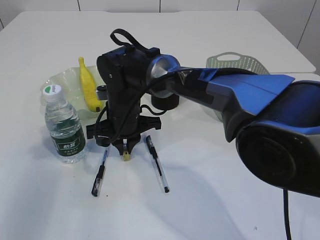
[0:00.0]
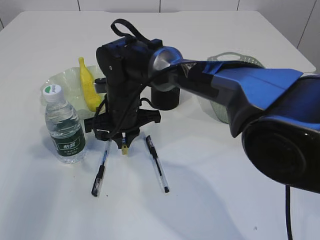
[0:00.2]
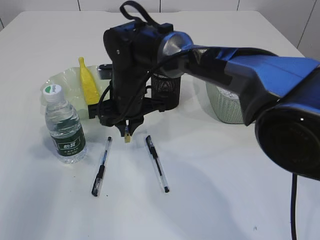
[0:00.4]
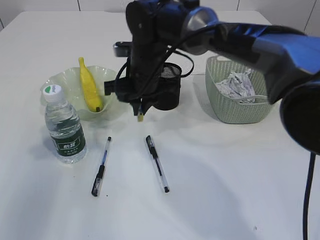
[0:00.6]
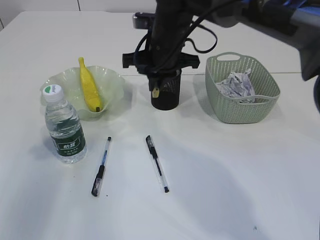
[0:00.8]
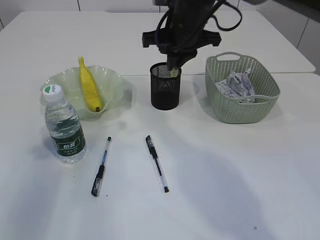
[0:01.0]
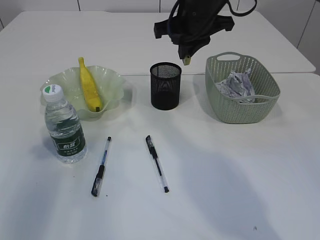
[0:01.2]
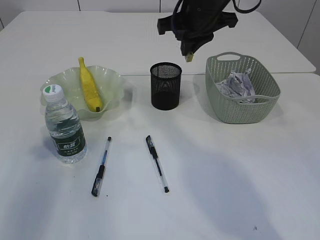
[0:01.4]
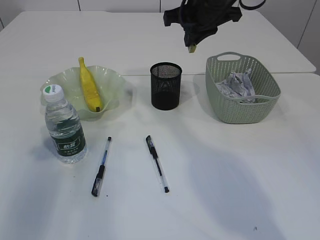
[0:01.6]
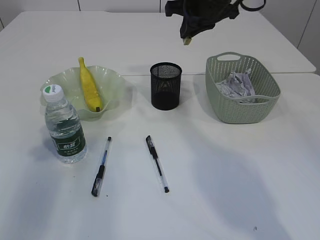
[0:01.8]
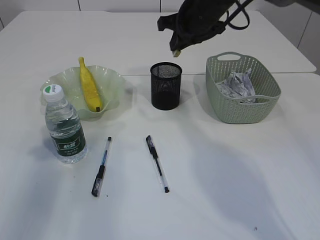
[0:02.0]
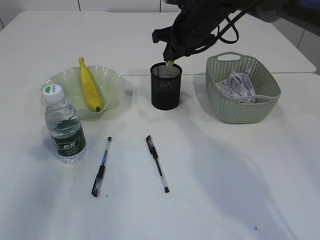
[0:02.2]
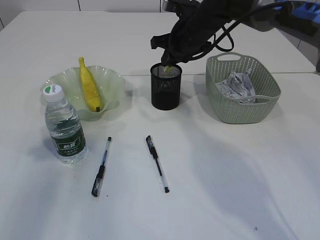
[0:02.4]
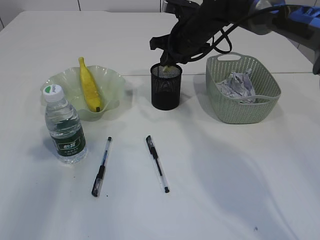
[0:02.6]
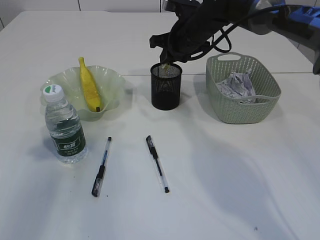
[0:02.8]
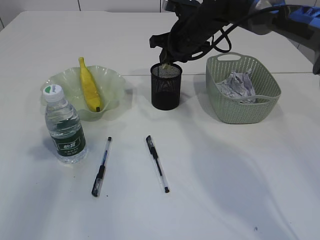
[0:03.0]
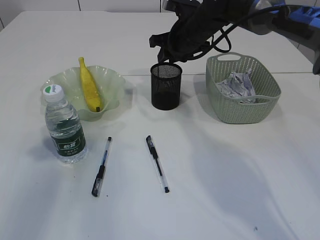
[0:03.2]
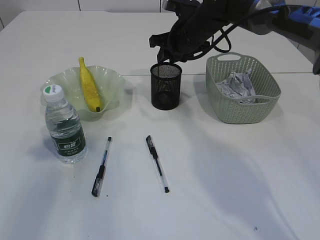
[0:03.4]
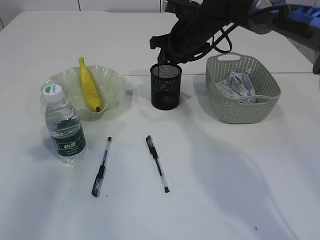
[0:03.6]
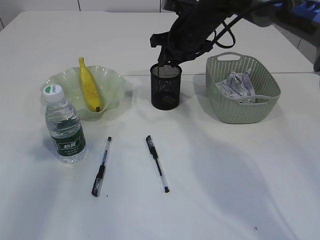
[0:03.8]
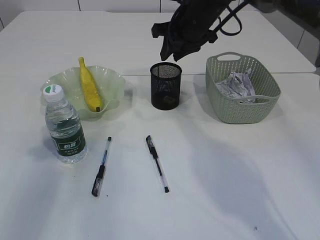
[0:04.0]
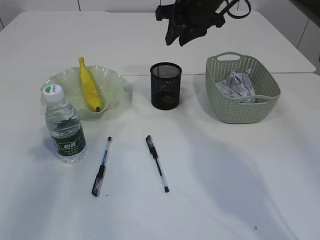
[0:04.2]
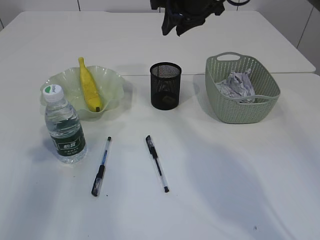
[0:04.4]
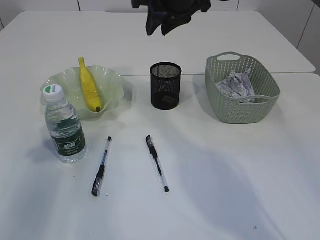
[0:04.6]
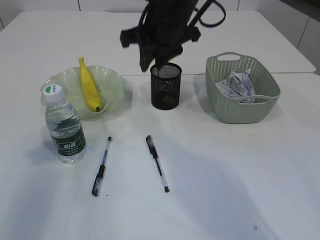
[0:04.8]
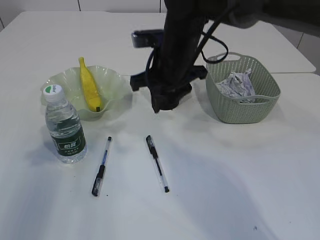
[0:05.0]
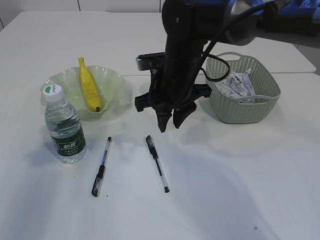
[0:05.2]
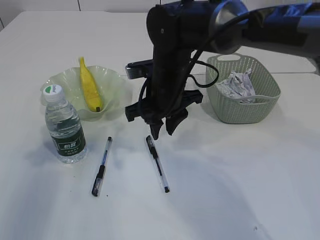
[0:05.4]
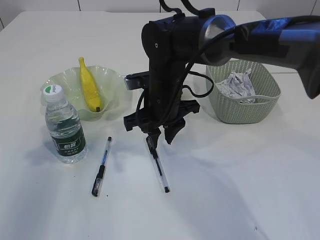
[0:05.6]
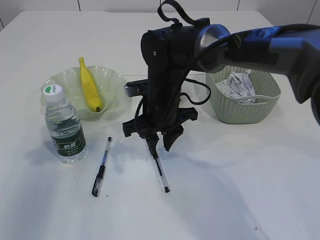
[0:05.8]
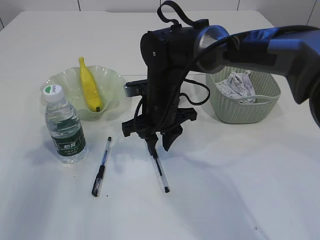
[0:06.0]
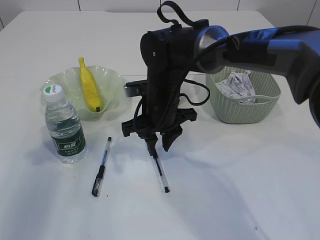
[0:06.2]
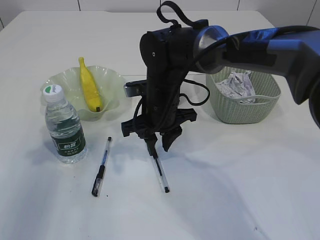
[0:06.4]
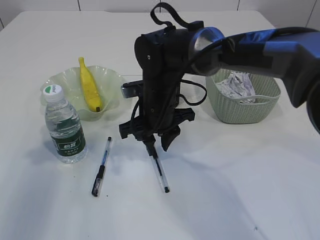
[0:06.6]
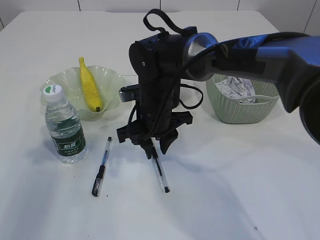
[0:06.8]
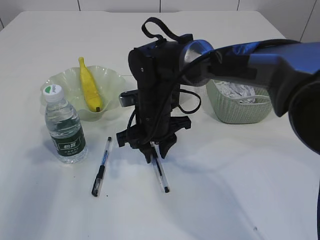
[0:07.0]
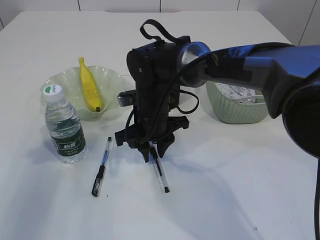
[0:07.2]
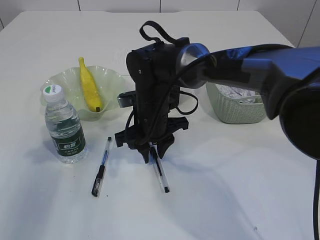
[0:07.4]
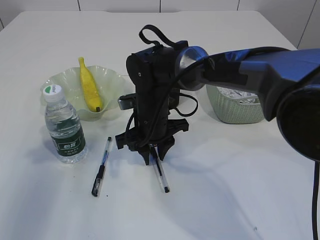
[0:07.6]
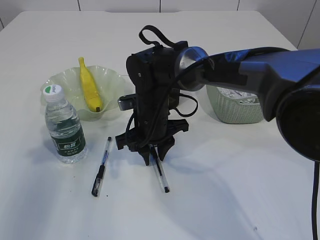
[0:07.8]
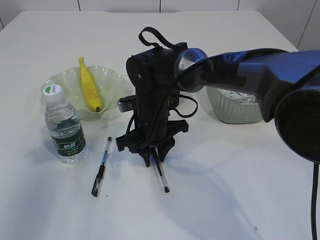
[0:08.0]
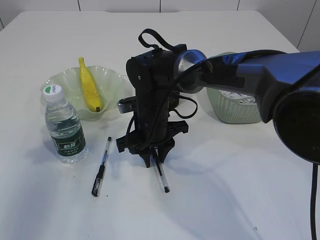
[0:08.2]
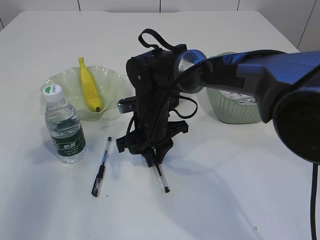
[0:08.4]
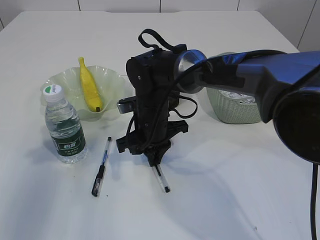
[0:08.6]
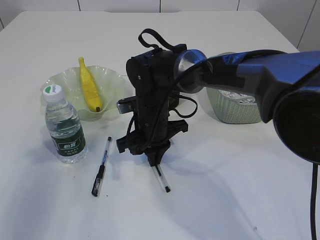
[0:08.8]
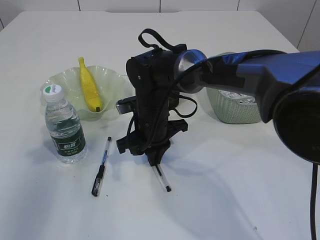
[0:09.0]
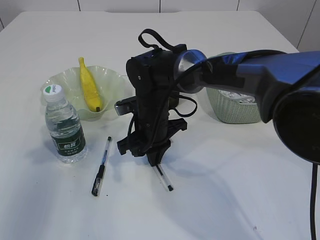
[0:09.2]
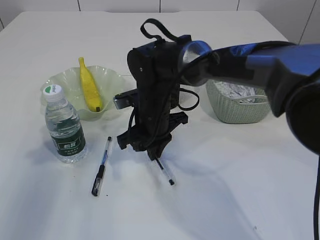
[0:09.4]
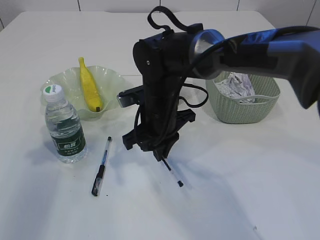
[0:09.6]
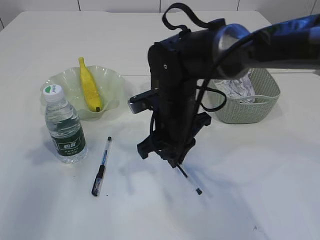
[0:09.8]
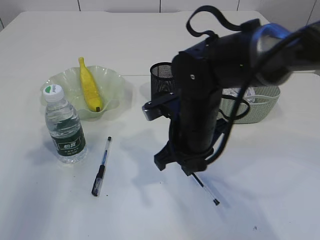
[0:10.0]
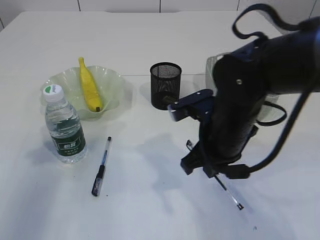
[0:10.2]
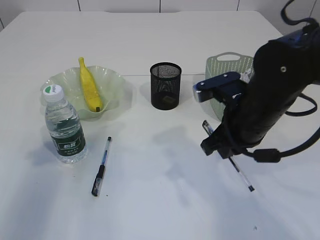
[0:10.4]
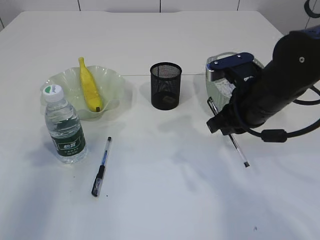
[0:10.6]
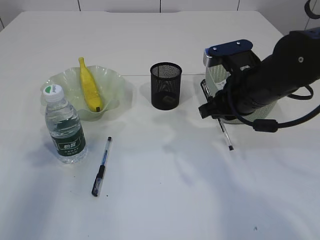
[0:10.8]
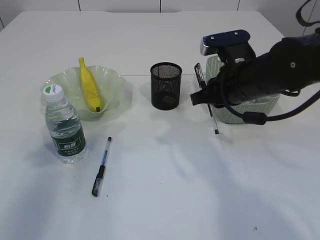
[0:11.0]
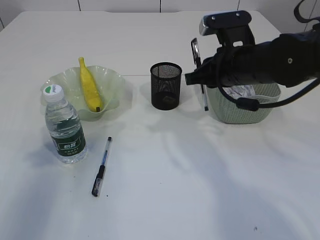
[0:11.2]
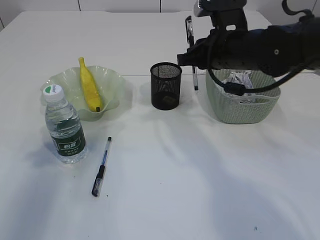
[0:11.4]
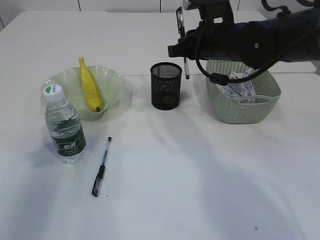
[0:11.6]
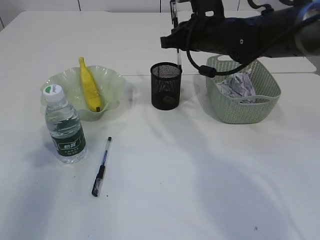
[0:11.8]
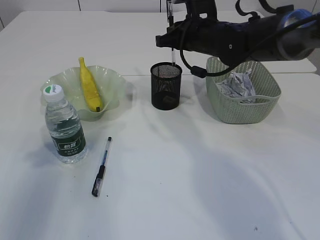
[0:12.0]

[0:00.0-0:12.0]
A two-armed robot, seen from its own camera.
Step, 0:00.6 to 0:04.0: Place the eraser into the pen holder.
Step, 0:04.2 to 0:09.6: Pick up the pen with right arm.
0:00.0 to 0:01.6: The right gripper shifts some 25 cm upward and to the right.
0:01.6 to 0:03.0: The right gripper shifts approximately 10 cm downward and forward.
0:03.0 to 0:04.4: The right gripper goes about 10 cm upward.
0:04.4 to 0:06.0: The right gripper travels downward, backward and to the left by roughly 20 cm.
0:06.0 to 0:07.6: There are only small adjustments of the grippers.
0:07.6 to 0:09.0: The right gripper closes.
0:09.0 to 0:10.4: The right gripper goes about 20 cm to the right, backward and upward.
0:10.4 to 0:12.0: The right gripper goes approximately 15 cm forward.

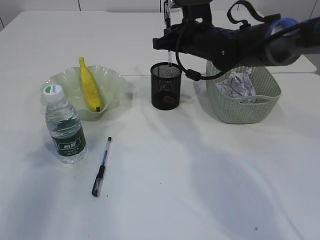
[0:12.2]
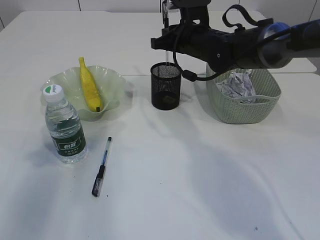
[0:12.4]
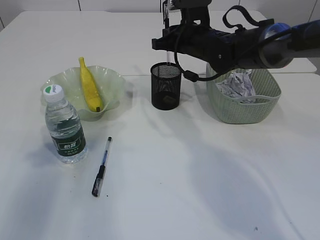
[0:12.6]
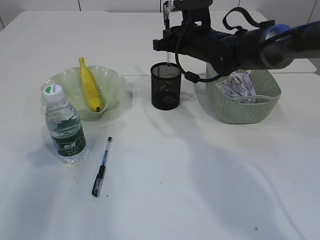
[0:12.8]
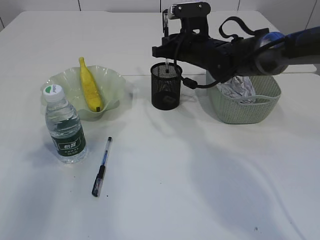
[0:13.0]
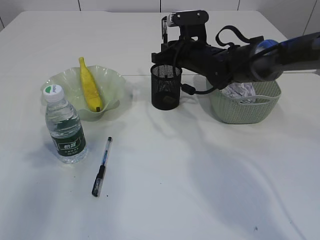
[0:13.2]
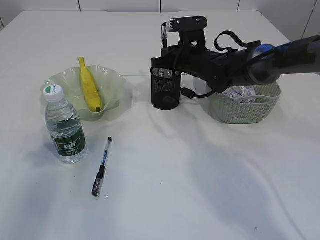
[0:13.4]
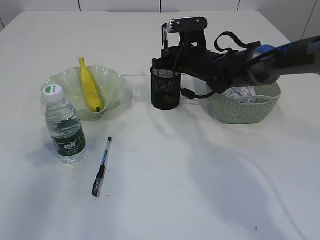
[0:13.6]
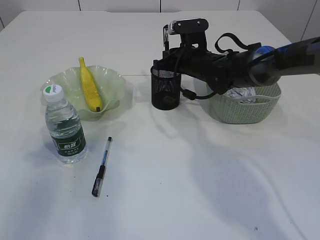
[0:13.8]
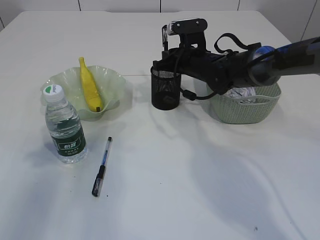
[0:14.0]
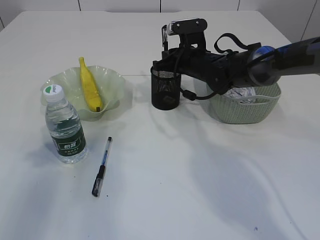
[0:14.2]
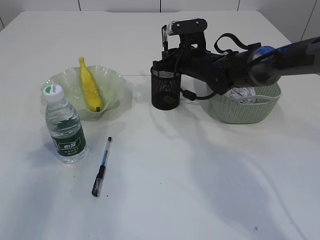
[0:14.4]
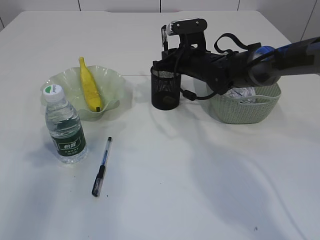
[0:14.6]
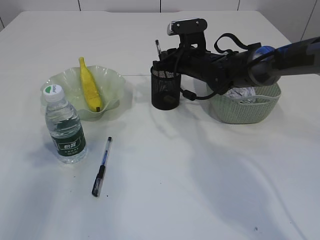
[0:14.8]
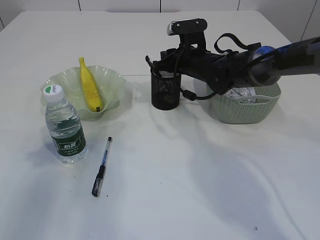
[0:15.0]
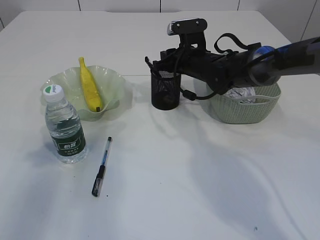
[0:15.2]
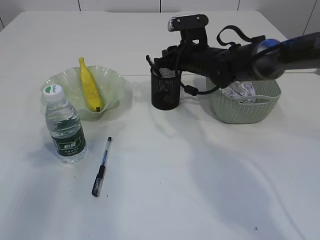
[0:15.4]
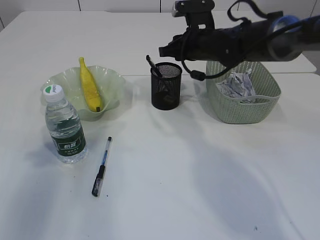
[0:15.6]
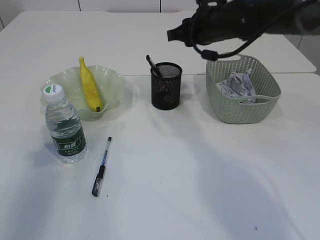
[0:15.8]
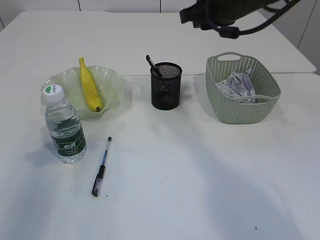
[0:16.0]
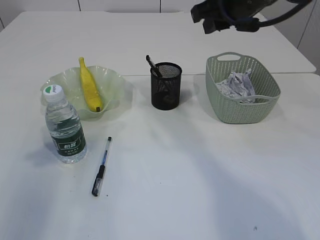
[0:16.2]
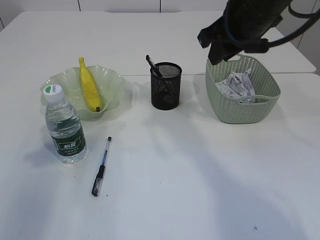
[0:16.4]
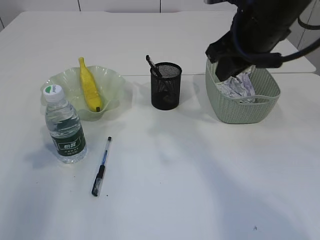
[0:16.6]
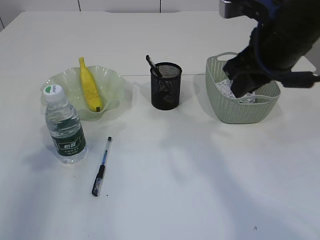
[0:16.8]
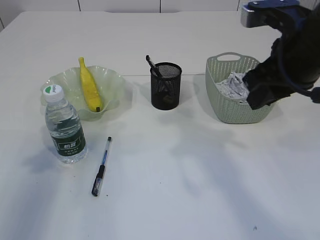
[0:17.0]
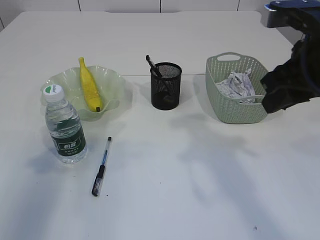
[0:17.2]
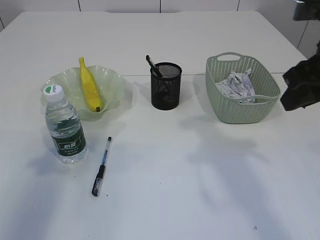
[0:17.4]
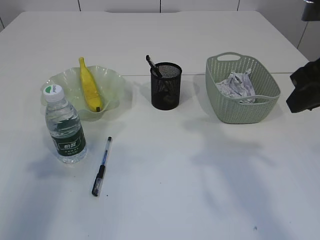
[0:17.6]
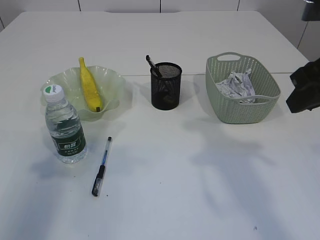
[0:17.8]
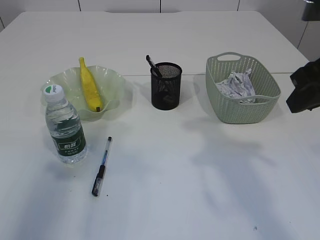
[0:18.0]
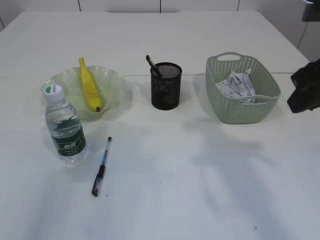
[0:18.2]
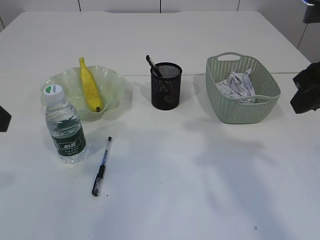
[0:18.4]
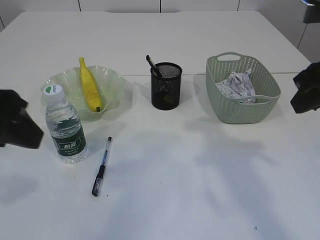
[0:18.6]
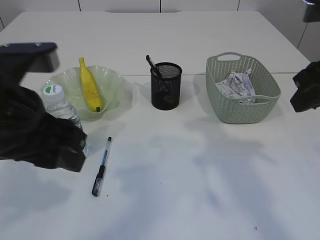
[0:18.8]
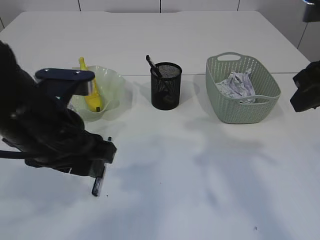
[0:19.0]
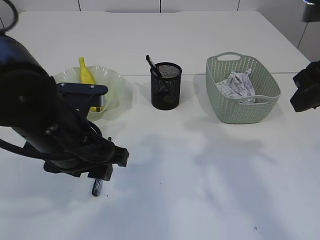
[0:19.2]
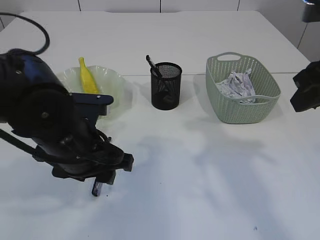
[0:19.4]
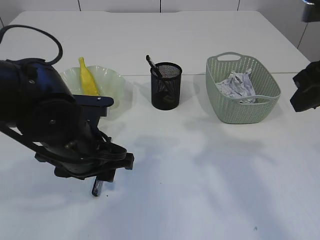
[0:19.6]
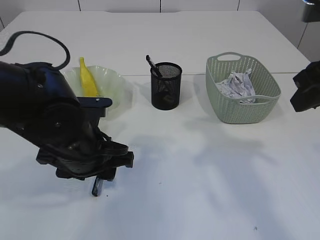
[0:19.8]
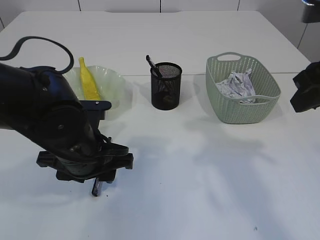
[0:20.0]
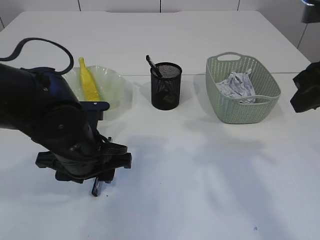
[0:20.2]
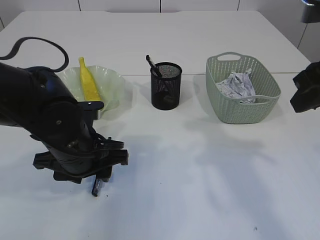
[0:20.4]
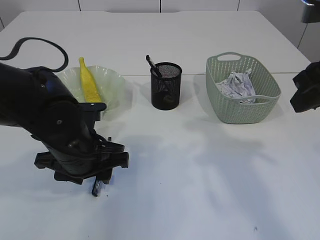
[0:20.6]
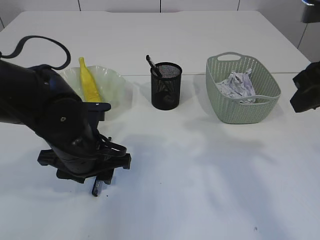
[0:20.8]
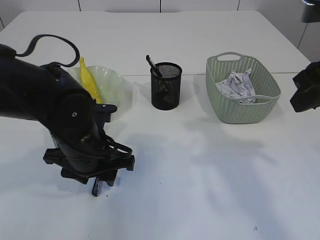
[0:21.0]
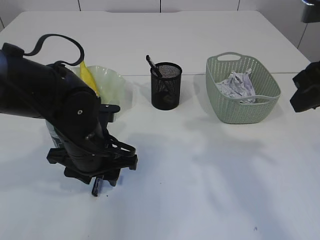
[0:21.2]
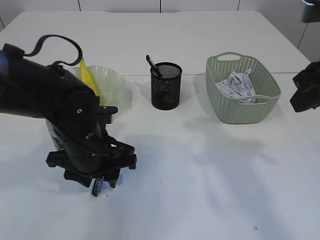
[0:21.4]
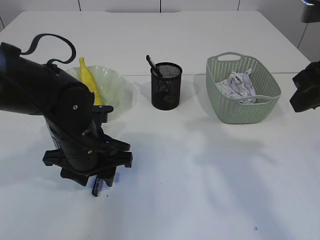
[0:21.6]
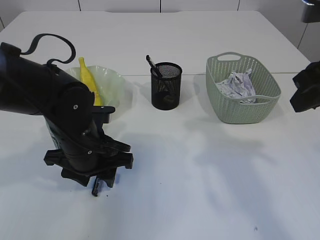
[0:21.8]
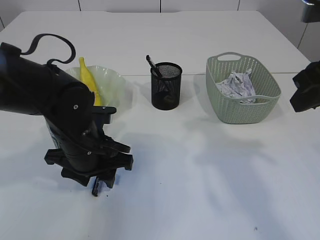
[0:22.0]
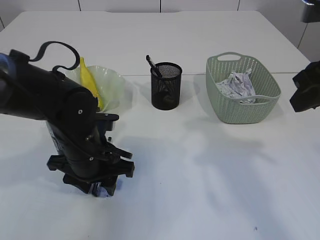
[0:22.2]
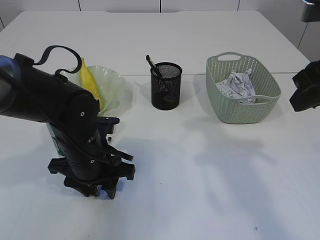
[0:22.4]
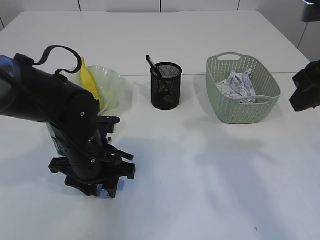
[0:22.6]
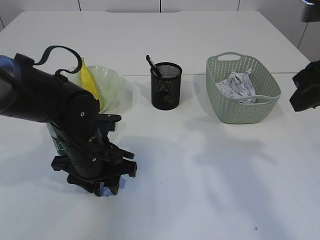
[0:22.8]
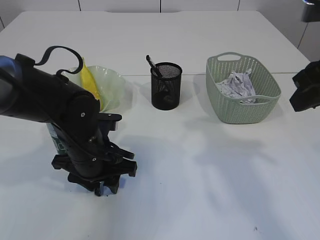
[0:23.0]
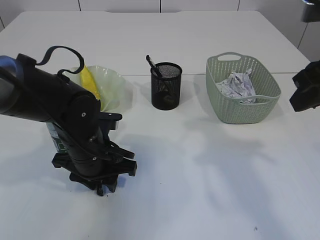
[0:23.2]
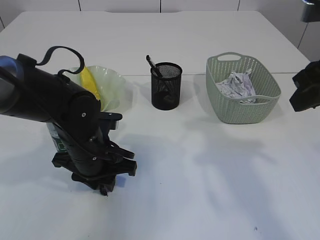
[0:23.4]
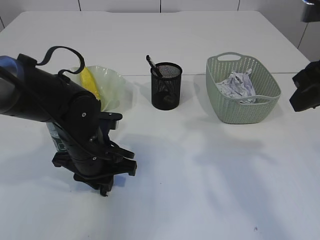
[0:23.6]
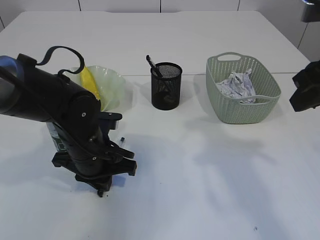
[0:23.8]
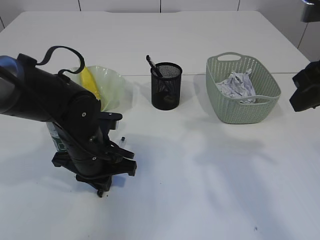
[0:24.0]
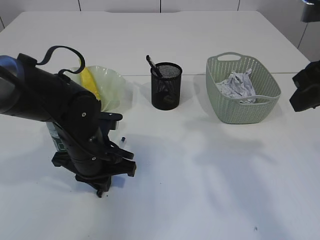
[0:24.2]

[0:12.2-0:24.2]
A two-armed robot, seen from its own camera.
Step, 0:12.2 to 0:15.6: Place the pen into the pen holder.
0:12.2 to 0:13.8: The right gripper is displaced downward by approximately 5 cm.
0:13.8 to 0:15.2: Neither gripper changes place.
0:15.2 to 0:16.6: The right gripper is displaced upward and backward by about 20 cm.
0:16.6 to 0:18.2: The left gripper is displaced backward and to the right by approximately 10 cm; the right gripper goes approximately 10 cm backward and to the right.
0:18.2 to 0:19.8: The left gripper goes approximately 25 cm downward and to the right.
0:19.8 to 0:22.6: There are only small adjustments of the grippers.
0:22.6 to 0:24.2: The left gripper closes its fingers.
